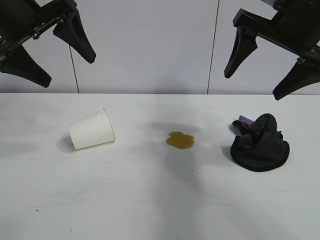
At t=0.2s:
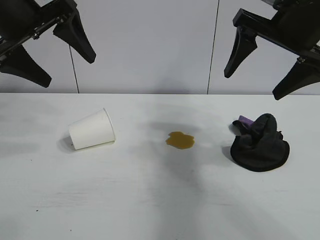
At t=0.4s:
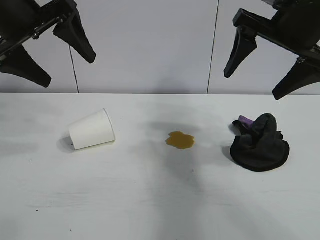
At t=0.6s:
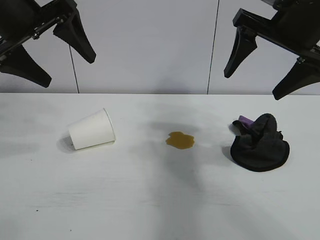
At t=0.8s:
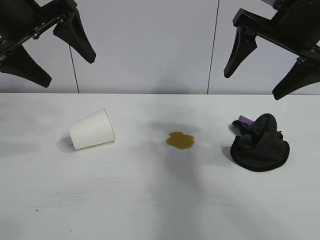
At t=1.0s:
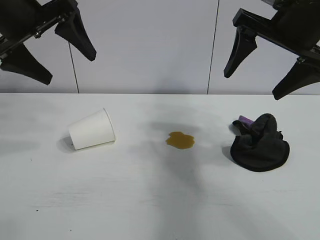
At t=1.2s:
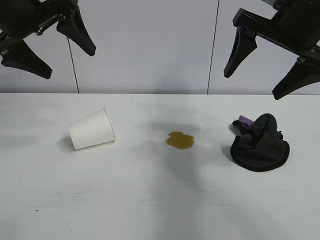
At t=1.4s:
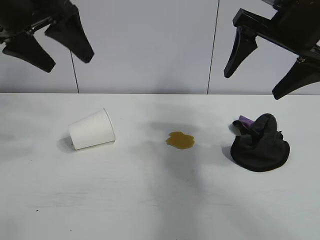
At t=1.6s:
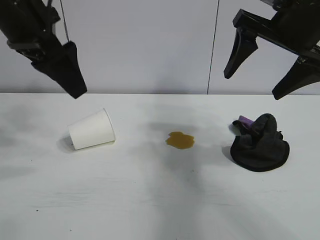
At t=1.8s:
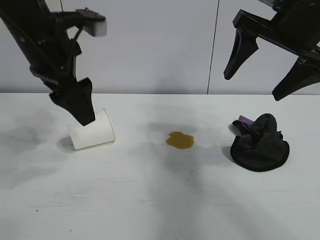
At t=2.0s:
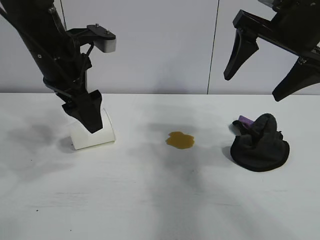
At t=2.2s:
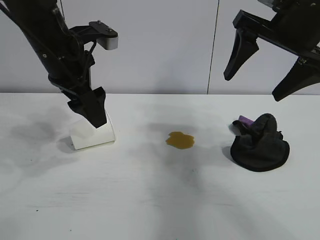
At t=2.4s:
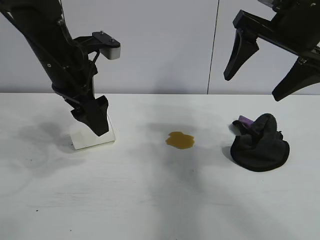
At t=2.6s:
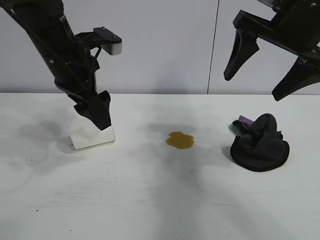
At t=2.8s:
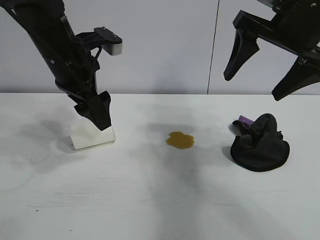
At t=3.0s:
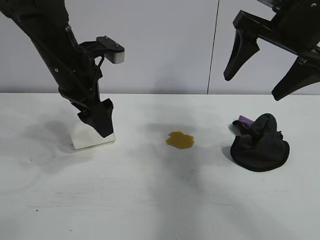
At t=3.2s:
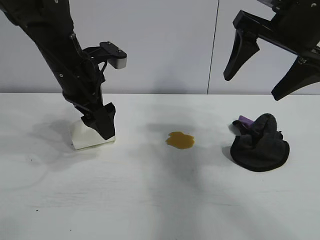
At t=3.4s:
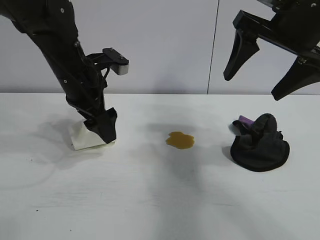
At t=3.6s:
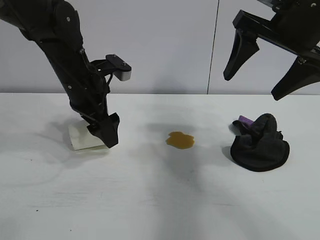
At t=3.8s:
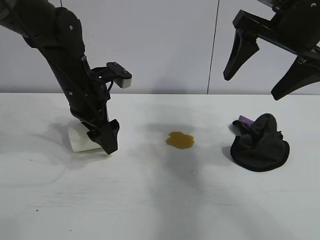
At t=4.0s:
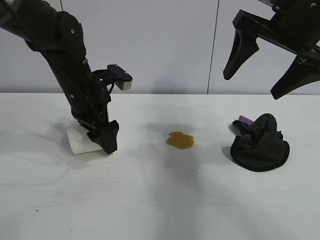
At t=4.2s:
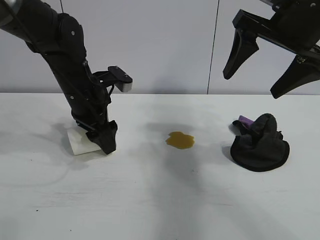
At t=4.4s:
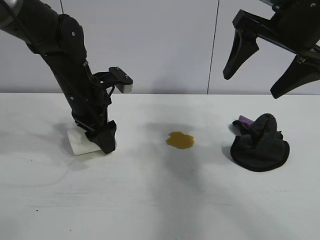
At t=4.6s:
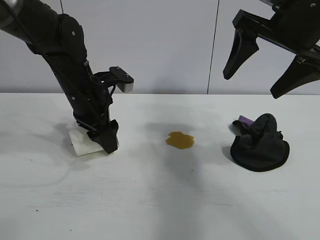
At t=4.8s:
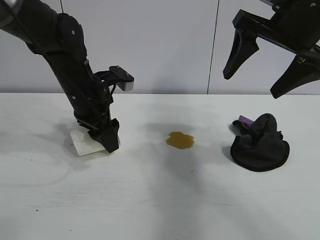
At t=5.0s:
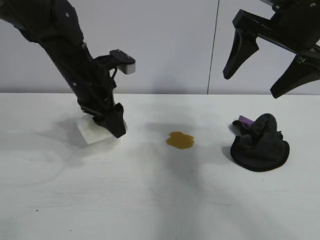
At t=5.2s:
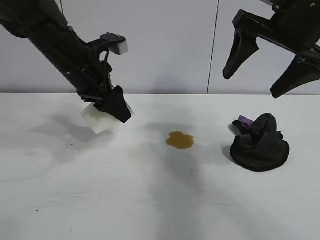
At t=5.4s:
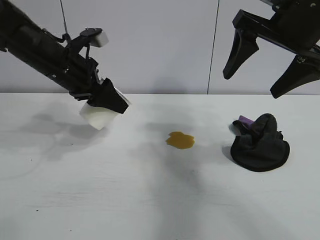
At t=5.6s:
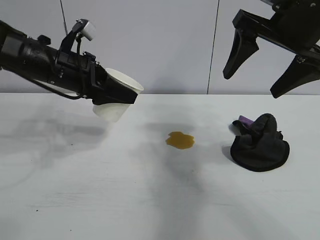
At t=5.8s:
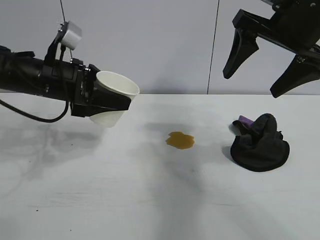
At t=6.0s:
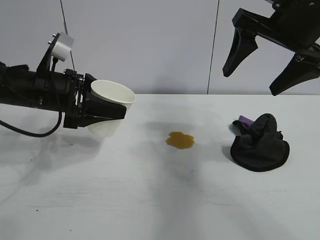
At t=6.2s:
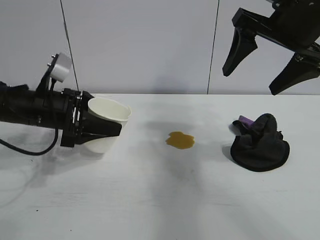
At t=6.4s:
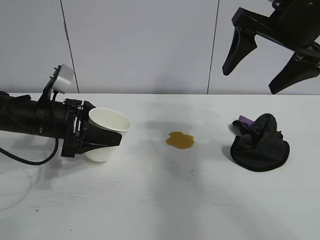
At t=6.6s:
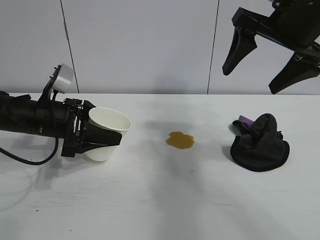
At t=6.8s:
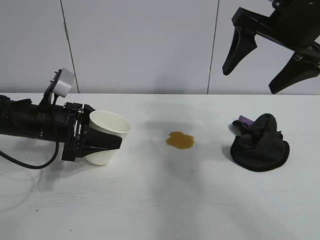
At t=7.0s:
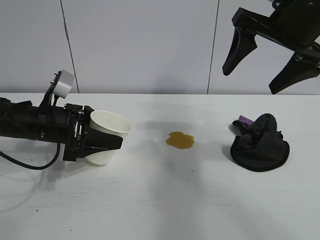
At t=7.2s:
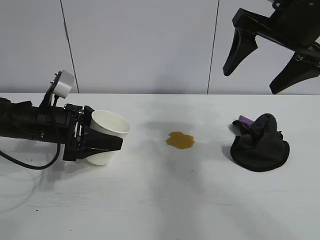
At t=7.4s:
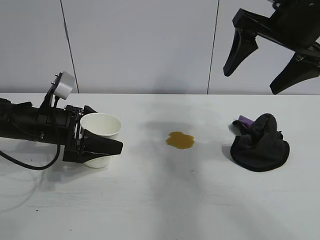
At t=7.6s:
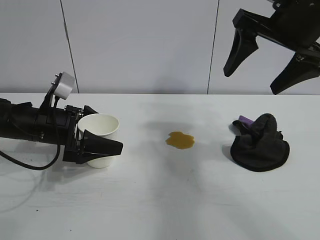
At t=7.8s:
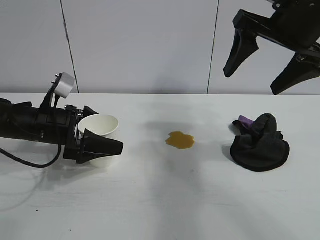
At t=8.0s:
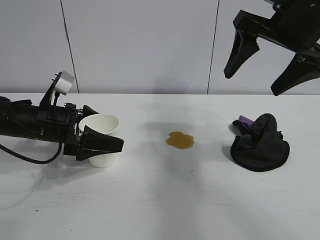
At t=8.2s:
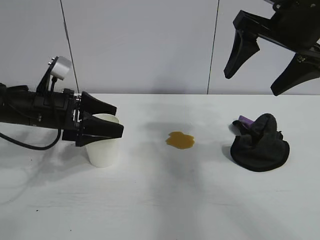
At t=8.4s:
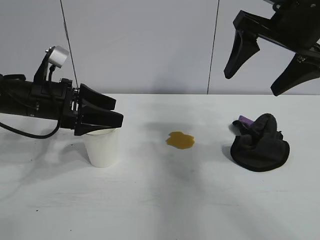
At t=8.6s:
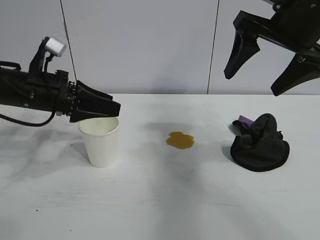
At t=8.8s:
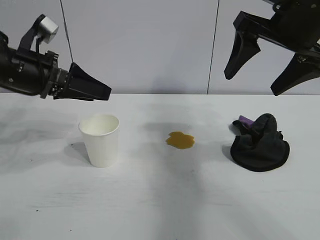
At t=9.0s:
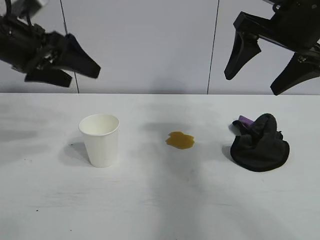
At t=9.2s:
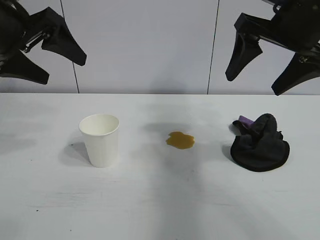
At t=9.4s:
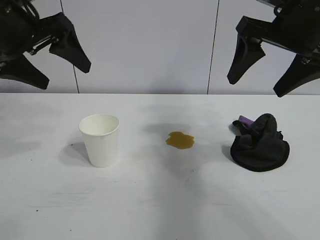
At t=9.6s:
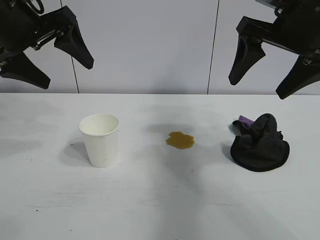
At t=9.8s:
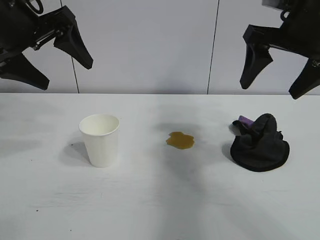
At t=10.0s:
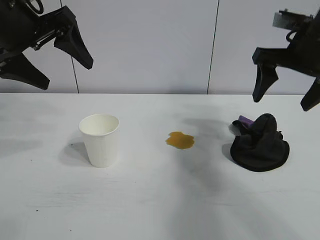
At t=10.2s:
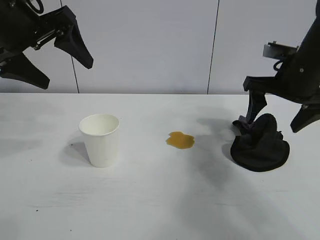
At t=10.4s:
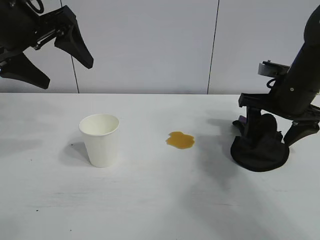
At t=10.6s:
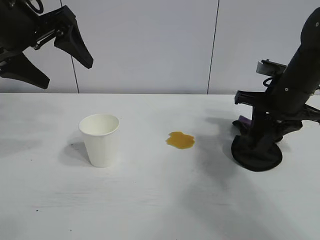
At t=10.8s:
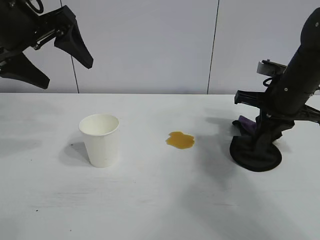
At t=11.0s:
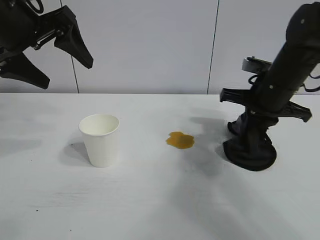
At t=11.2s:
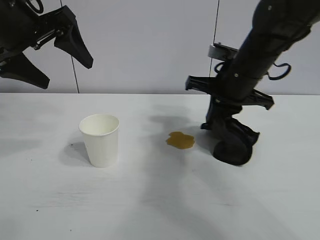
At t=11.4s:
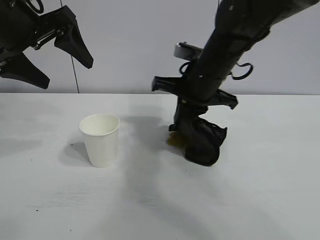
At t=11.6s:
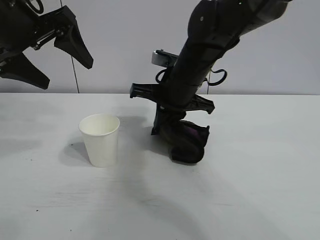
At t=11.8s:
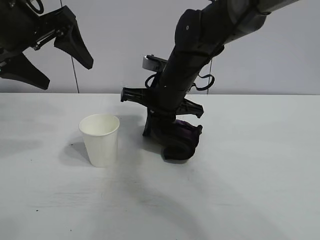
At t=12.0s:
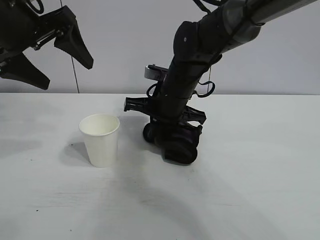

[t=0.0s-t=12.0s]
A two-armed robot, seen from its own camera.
Task of the whole recording: the left gripper pick up the fallen cup and place it upright, the right gripper grasp the black rag and wipe the stain on the table, the right gripper put the black rag back in its original position.
Step, t=1.2s to t=4.4s: Grasp the paper cup with left gripper.
Step, t=4.6s to t=7.4s: Stand the paper cup upright with left gripper.
Step, t=7.6s to t=10.6s: Grasp the rag with right gripper.

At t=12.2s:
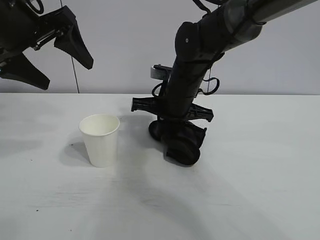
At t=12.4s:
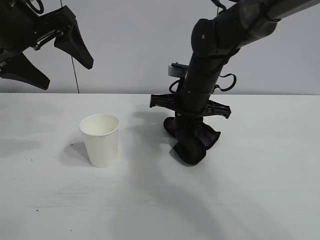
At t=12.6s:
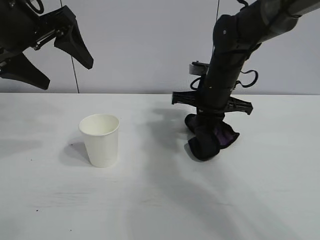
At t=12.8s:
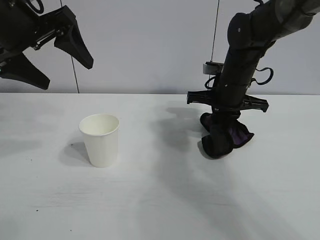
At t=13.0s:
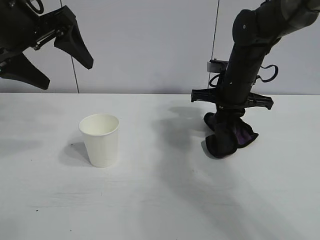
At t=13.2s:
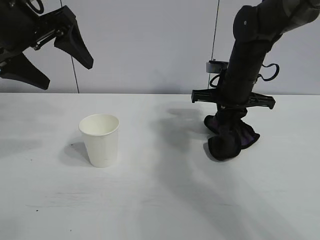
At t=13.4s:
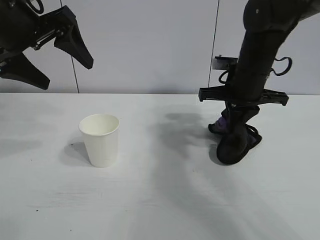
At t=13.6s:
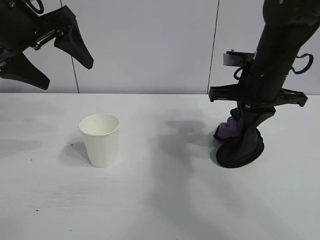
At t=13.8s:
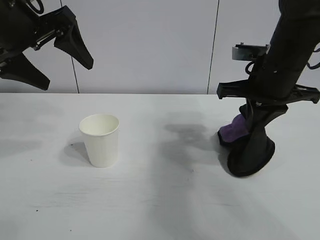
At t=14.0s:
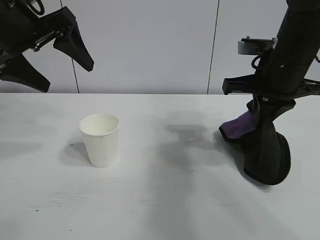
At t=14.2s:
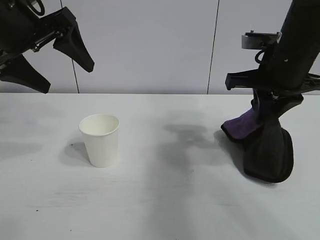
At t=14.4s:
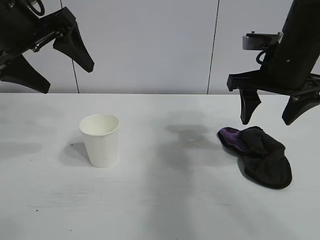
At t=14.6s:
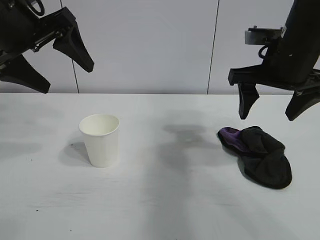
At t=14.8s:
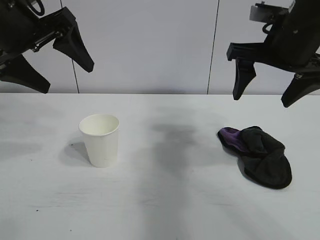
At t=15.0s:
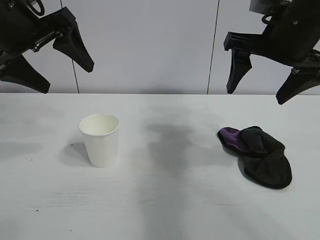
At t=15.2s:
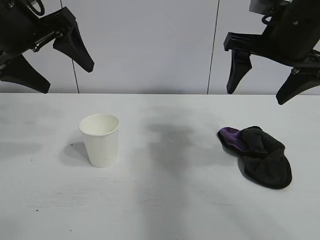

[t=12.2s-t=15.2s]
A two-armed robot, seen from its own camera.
Task of the whole recording: the left gripper pick up the fallen cup and place it upright, the right gripper grasp the black rag and wipe the stain on the table, the right gripper put the black rag back in its original position.
Step, t=13.6s to t=14.2s: Place the rag on the table with right gripper.
